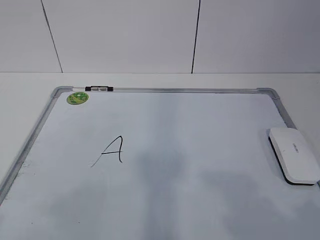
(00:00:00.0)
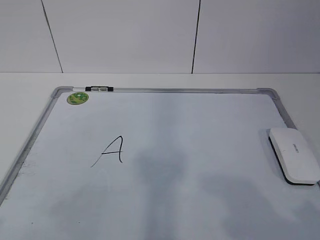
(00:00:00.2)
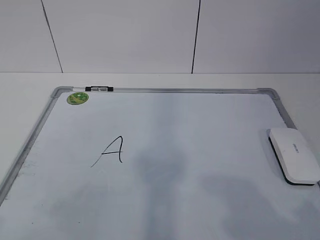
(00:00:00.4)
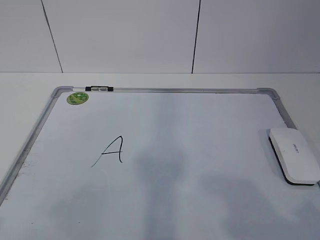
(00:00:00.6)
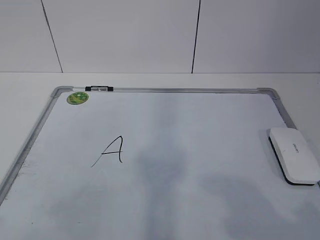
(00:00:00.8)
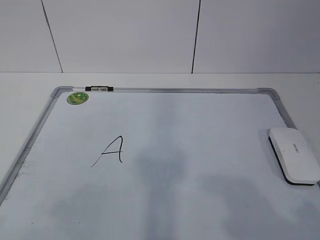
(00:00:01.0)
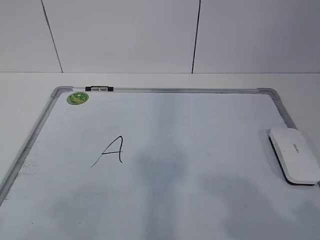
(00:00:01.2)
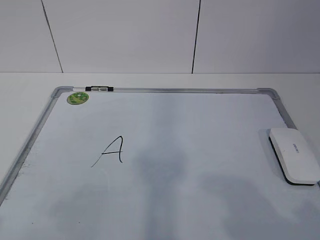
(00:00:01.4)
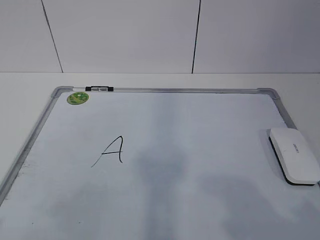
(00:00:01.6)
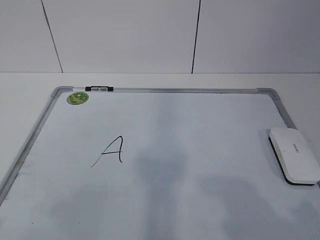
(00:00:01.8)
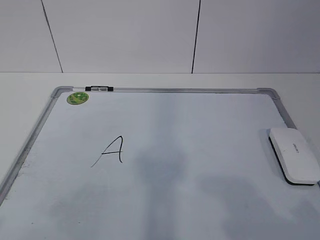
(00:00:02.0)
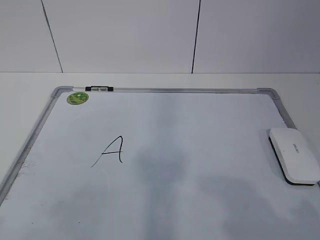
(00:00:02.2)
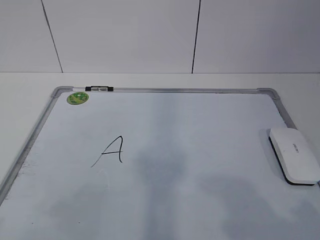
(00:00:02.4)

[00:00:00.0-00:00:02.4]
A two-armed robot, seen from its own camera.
Task of the whole recording: pick up the eraser on the blackboard and erase the letter "a".
00:00:00.0 to 00:00:02.4: Both grippers stay put.
